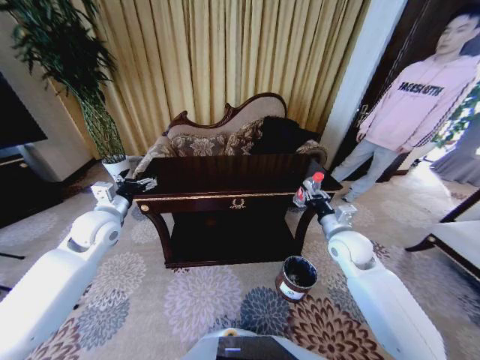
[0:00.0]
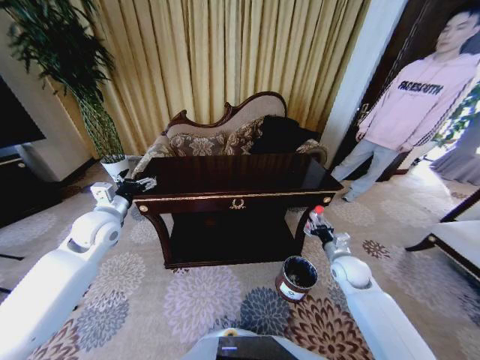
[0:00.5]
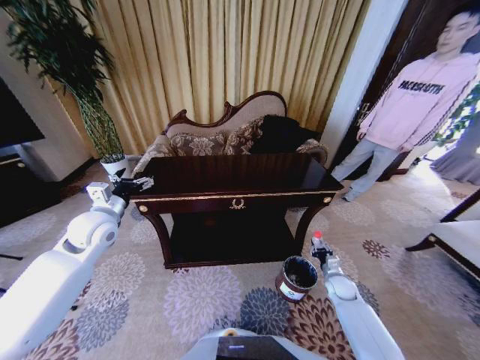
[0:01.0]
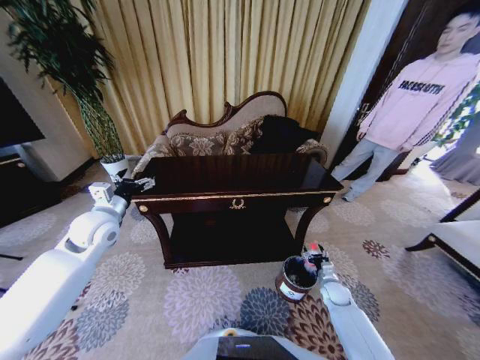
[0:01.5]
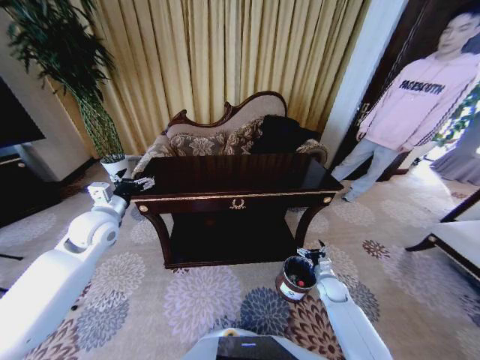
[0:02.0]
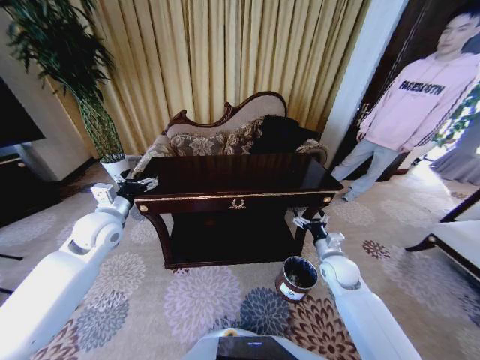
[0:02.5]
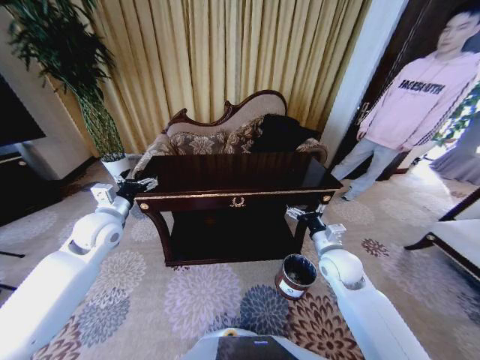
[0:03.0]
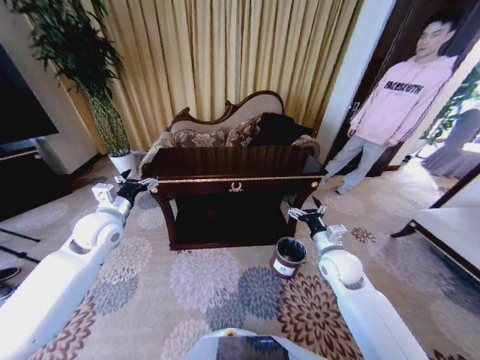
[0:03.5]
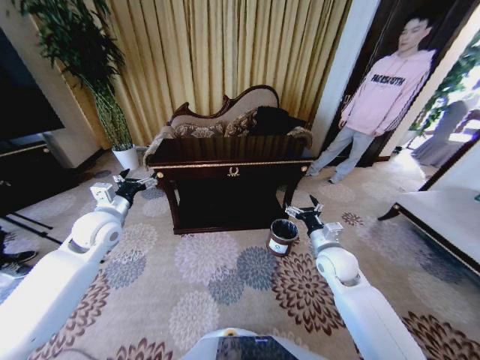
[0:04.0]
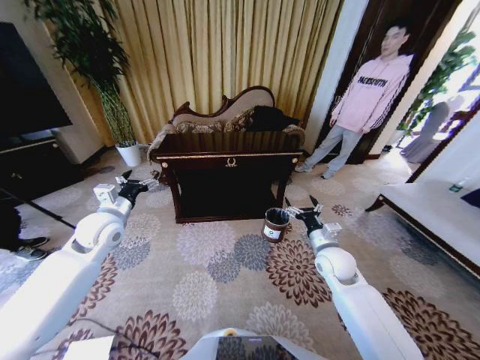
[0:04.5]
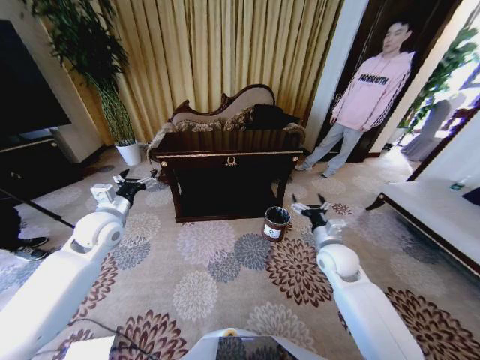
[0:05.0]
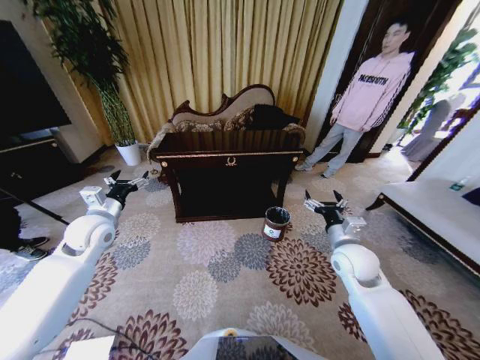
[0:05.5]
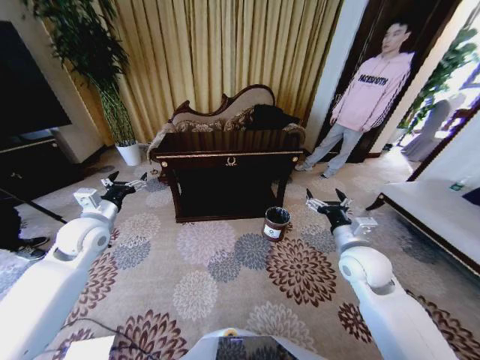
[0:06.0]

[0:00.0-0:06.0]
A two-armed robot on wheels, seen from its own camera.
Task of the whole recording: Move to the front of the table and place the trash on the table into the trash bin.
0:00.0 to 0:02.0: The right gripper shifts about 25 cm downward, and opens up.
0:02.0 to 0:04.0: The right gripper travels upward and to the left by about 25 cm.
0:04.0 to 0:06.0: The right gripper heads upward, covering approximately 5 cm.
